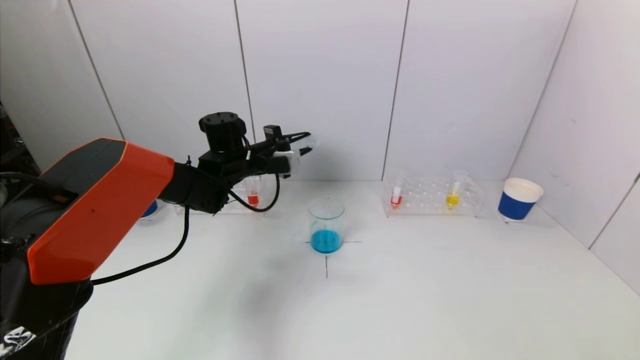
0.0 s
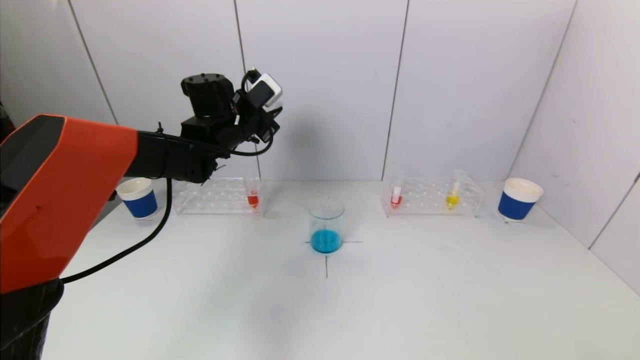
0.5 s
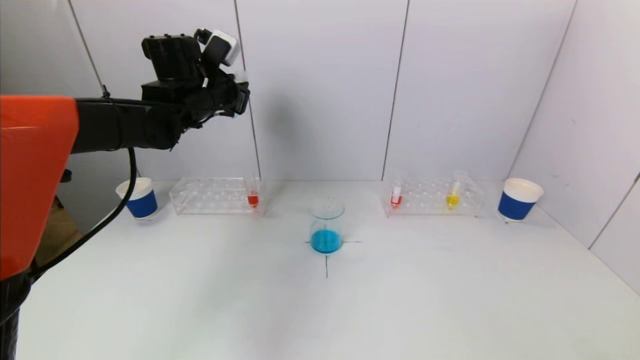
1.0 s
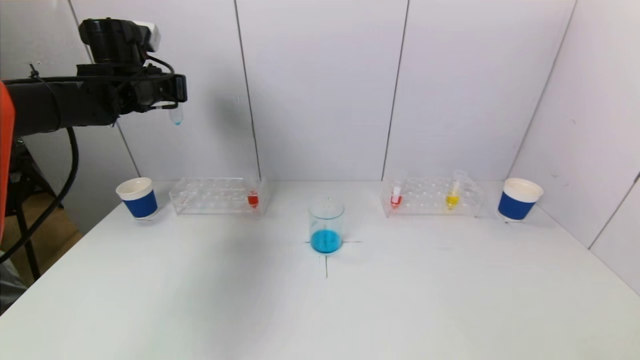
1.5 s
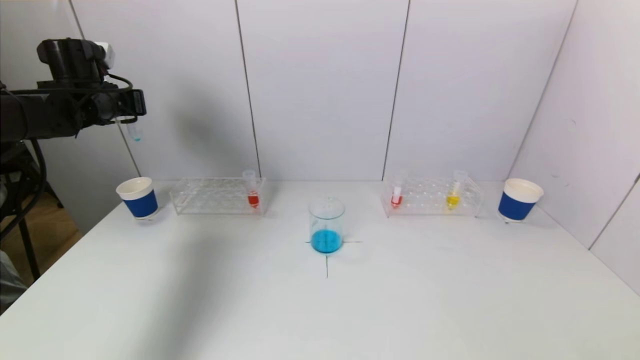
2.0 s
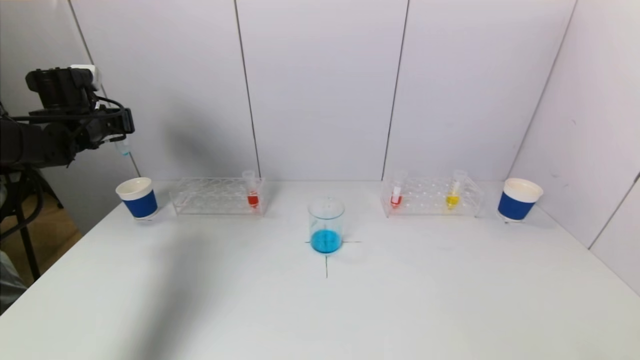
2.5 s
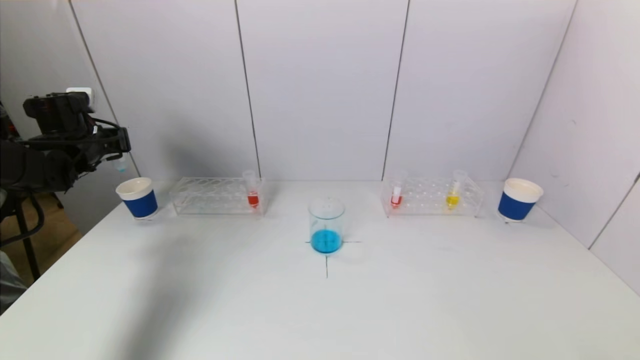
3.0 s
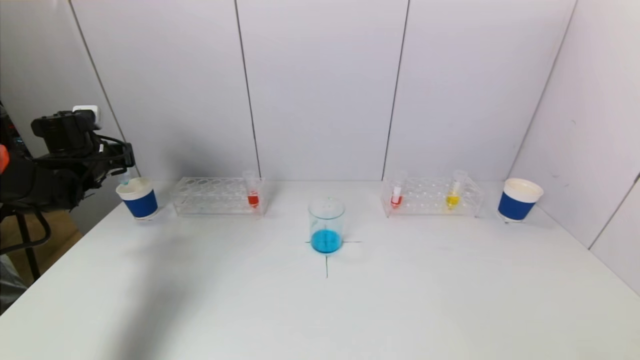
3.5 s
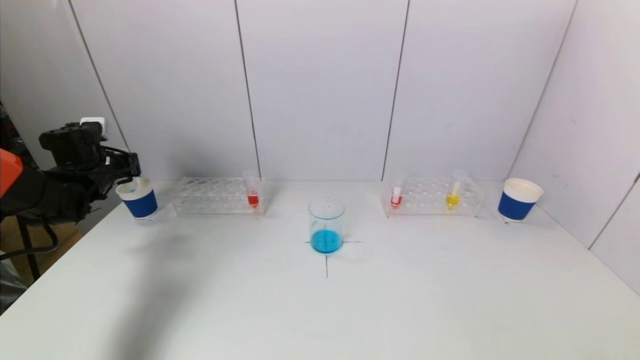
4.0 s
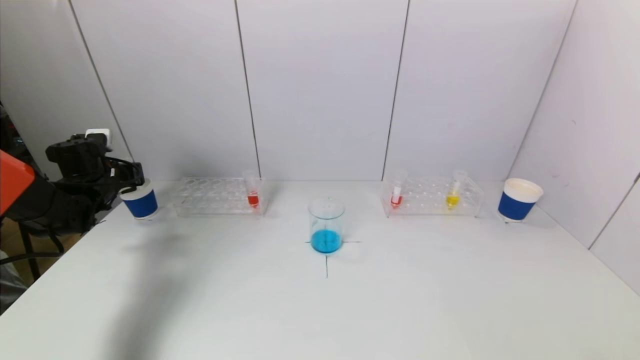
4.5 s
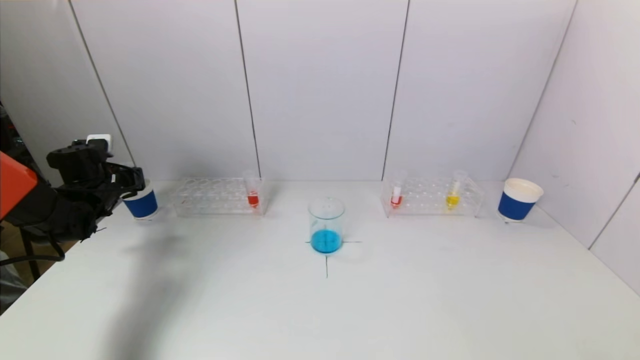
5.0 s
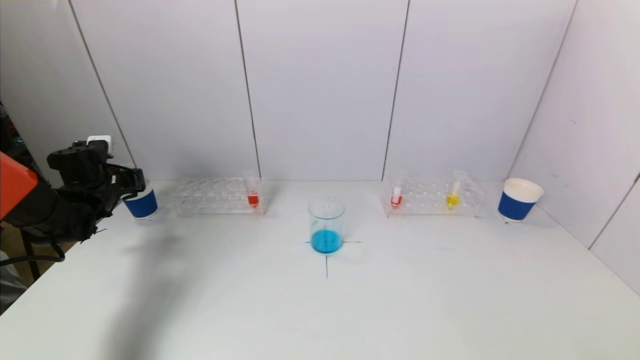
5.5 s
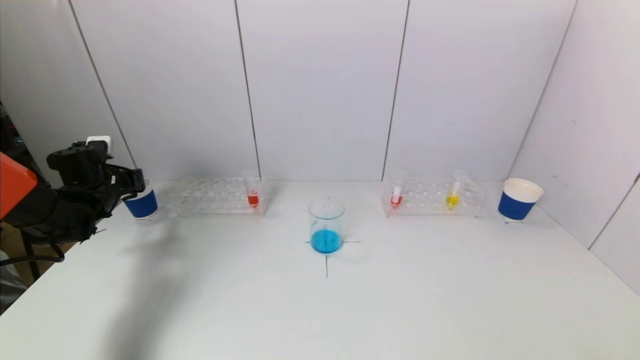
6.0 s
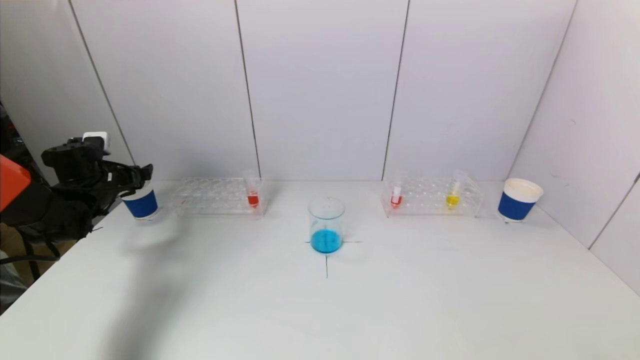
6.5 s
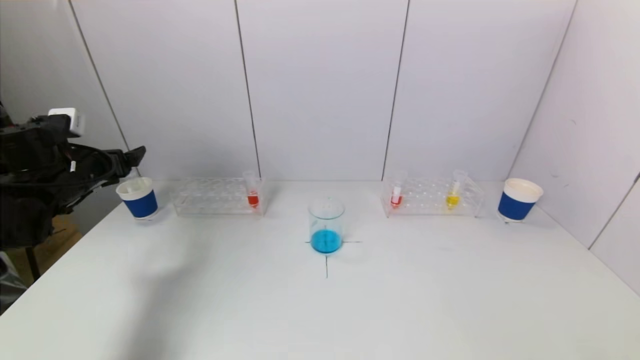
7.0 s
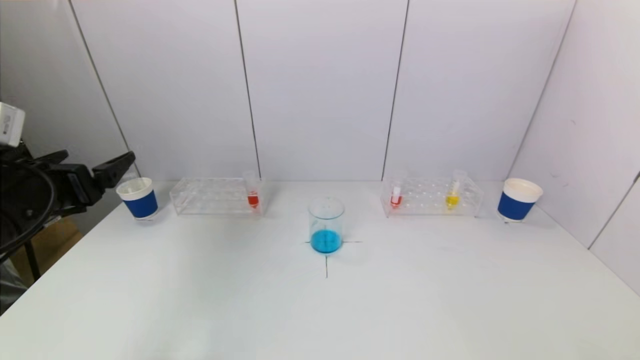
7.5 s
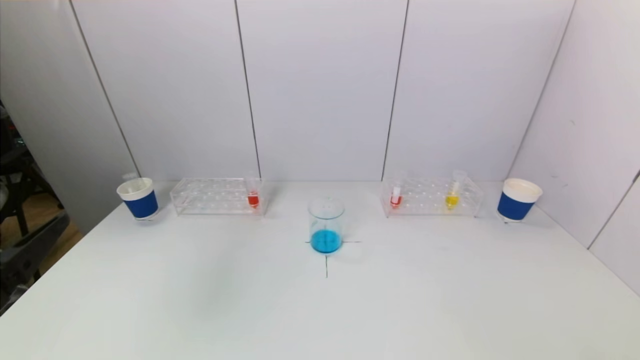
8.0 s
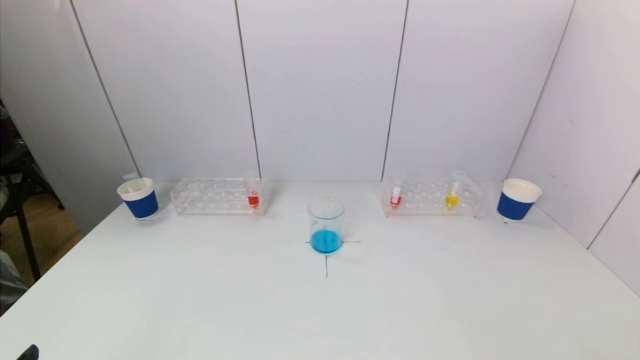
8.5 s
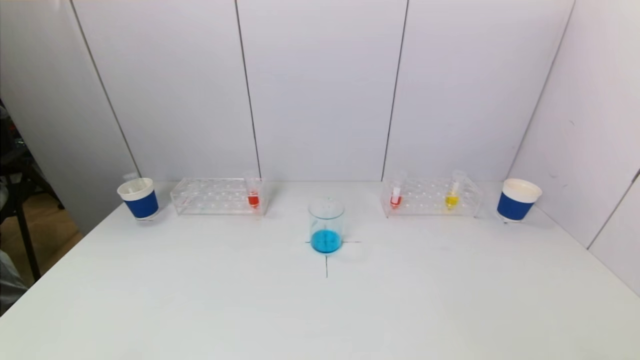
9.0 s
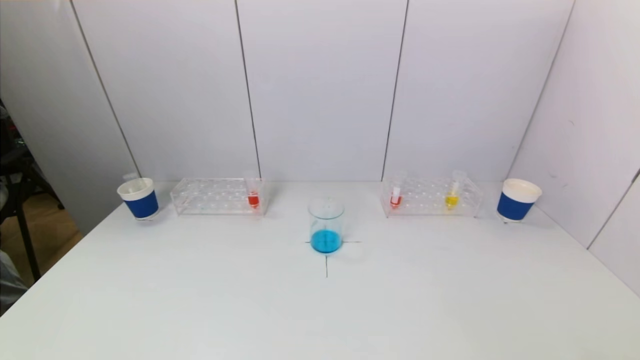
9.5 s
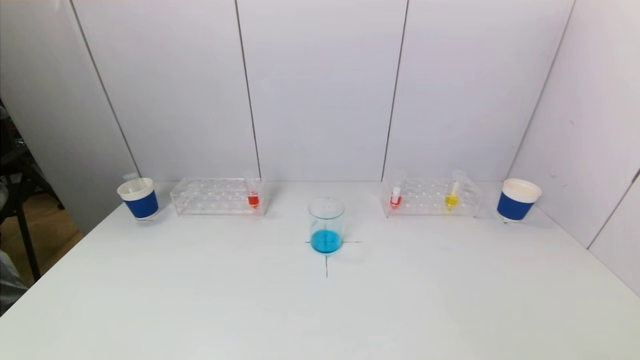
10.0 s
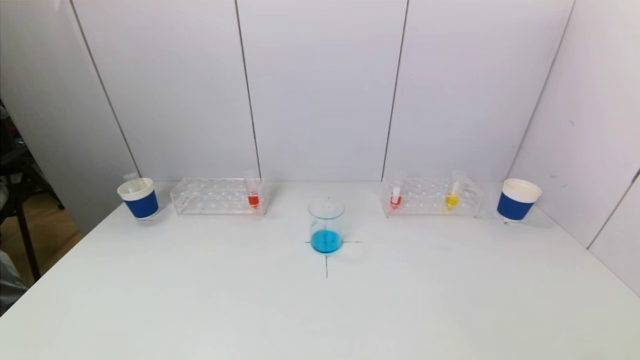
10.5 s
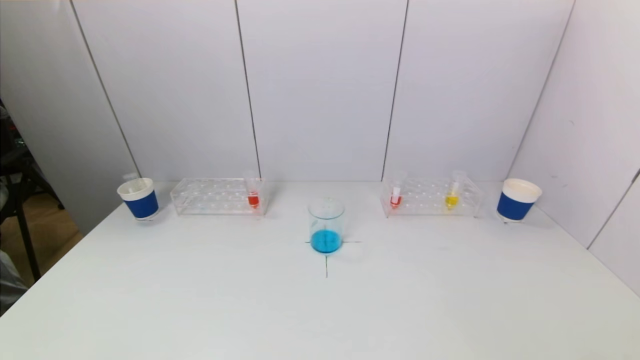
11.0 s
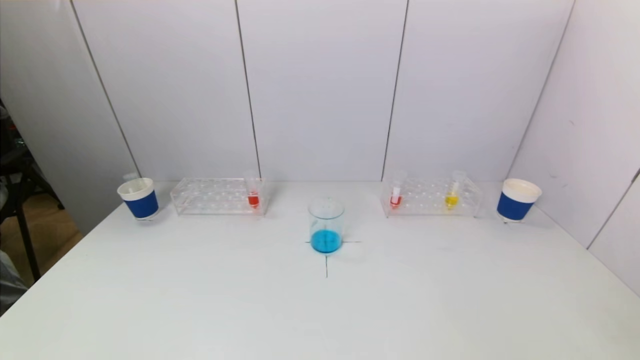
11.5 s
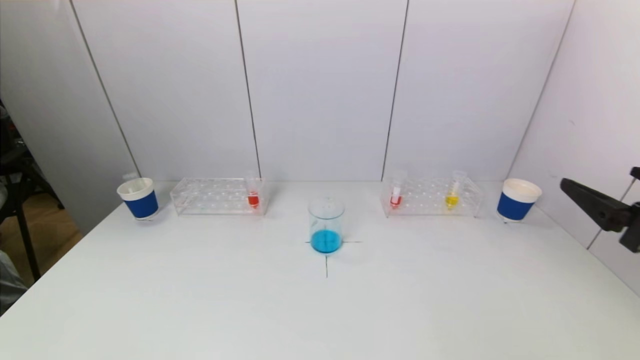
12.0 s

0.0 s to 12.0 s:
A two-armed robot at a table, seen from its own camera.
Task of the whole recording: pick up a test tube with pigment on left test tube rack and a test tube with pigment on right test tube rack by grippers and pour them into the beaker.
Step, 0.5 to 6.5 s: Place the test tube into the paper cup with the left gripper.
0.0 to 2.0 s: The left gripper is displaced to the left and upward by about 25 cm.
2.0 to 4.0 s: The left gripper travels downward by about 15 cm.
4.0 to 6.0 s: The left gripper opens up.
6.0 to 8.0 s: The left gripper is displaced backward by some 35 cm, and opens up.
8.0 to 10.0 s: The left gripper heads downward and backward, covering approximately 15 cm.
10.0 to 12.0 s: The right gripper travels forward and upward by about 25 cm.

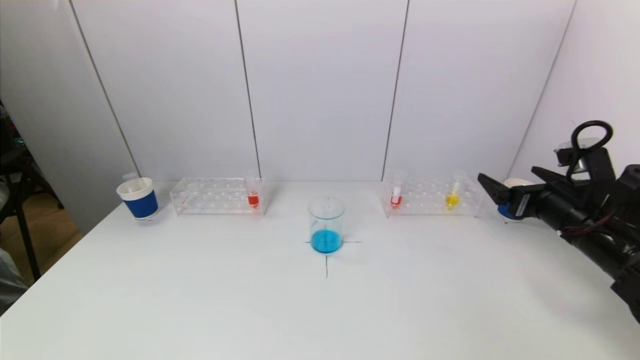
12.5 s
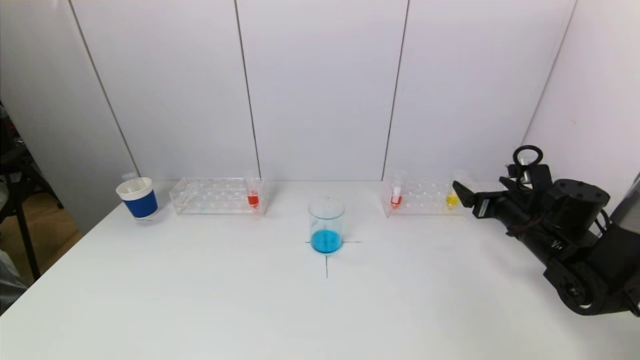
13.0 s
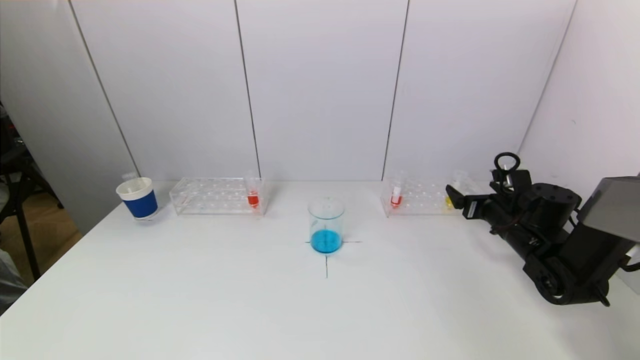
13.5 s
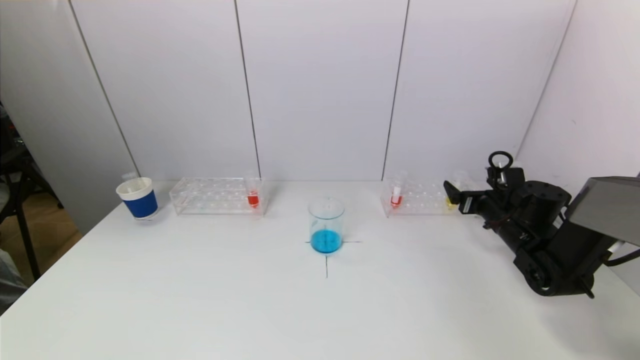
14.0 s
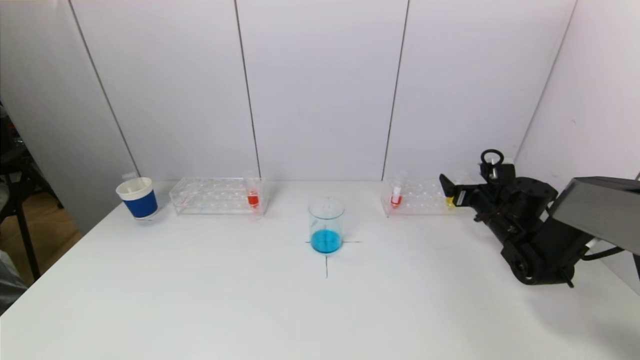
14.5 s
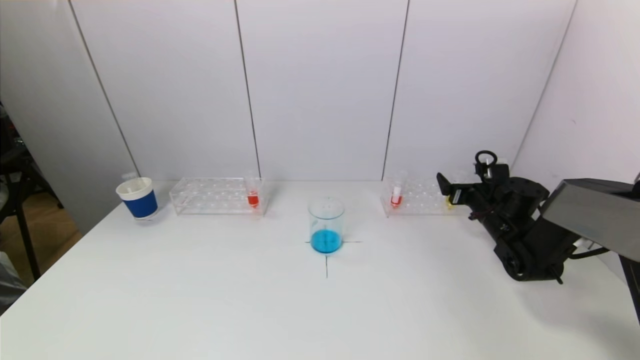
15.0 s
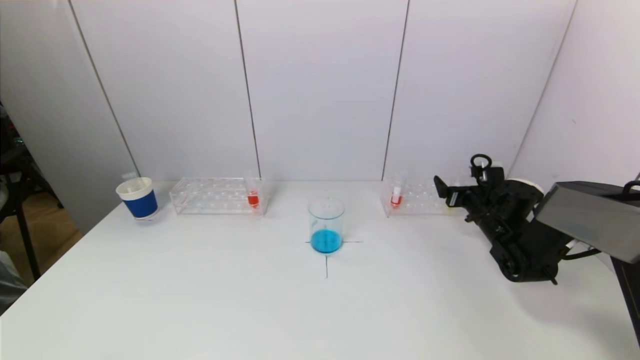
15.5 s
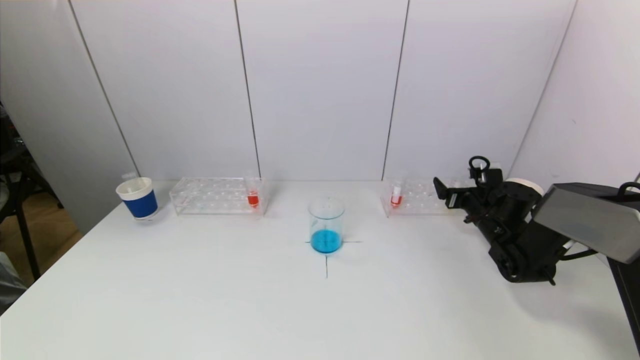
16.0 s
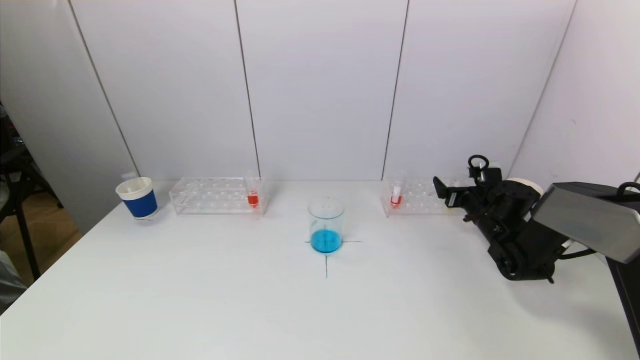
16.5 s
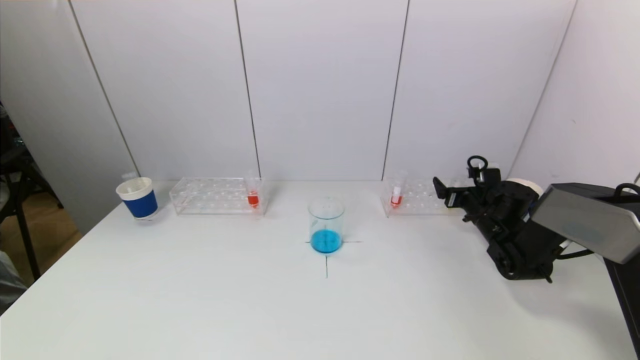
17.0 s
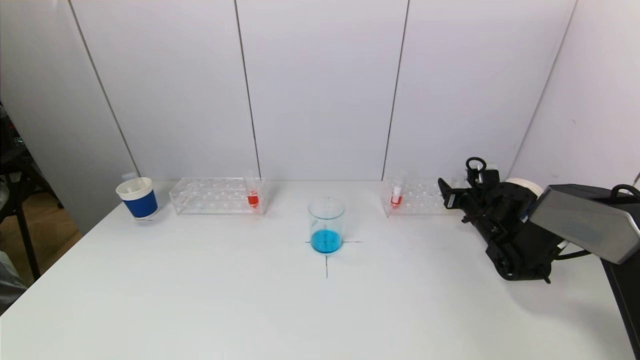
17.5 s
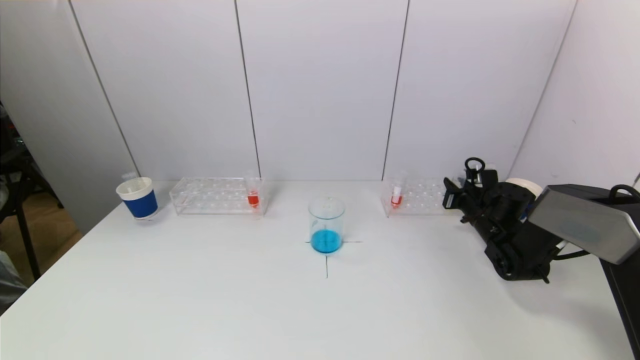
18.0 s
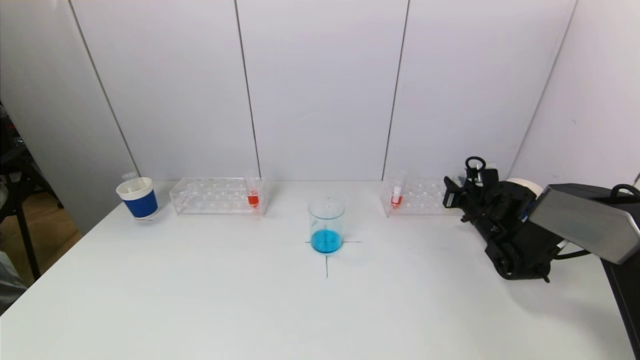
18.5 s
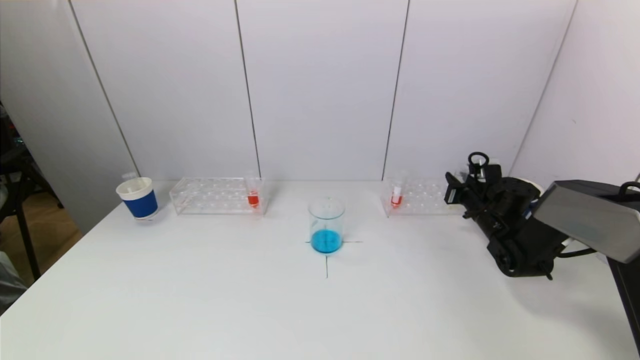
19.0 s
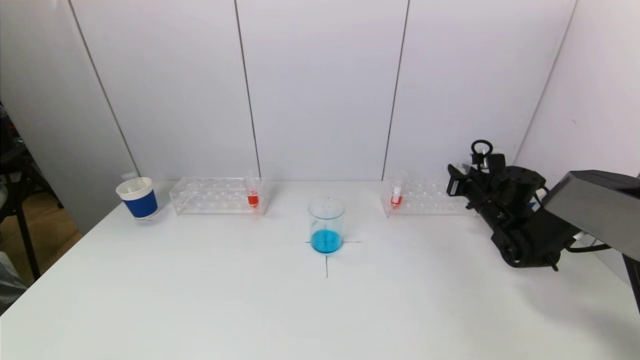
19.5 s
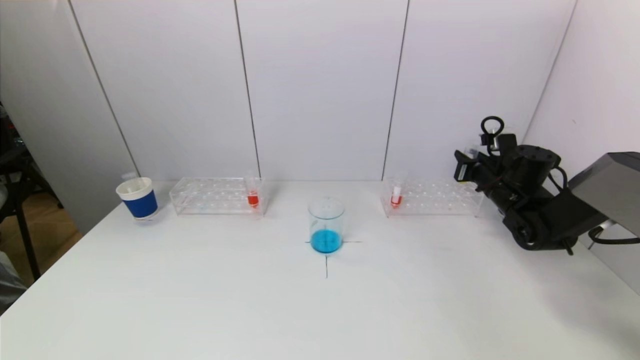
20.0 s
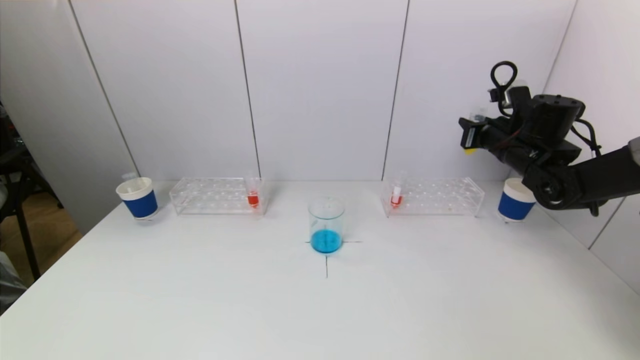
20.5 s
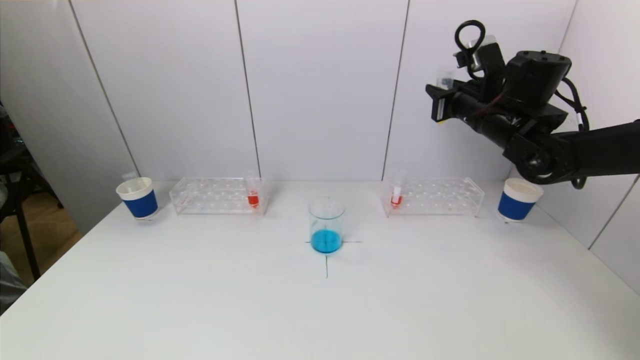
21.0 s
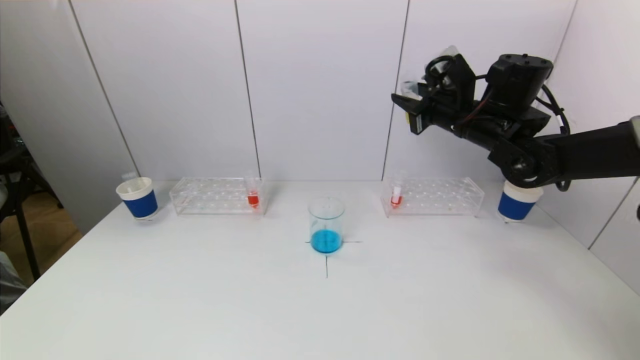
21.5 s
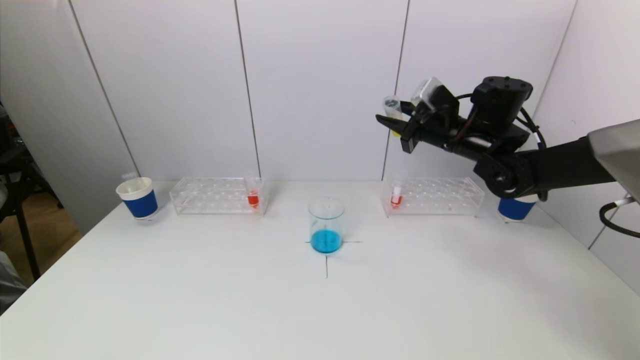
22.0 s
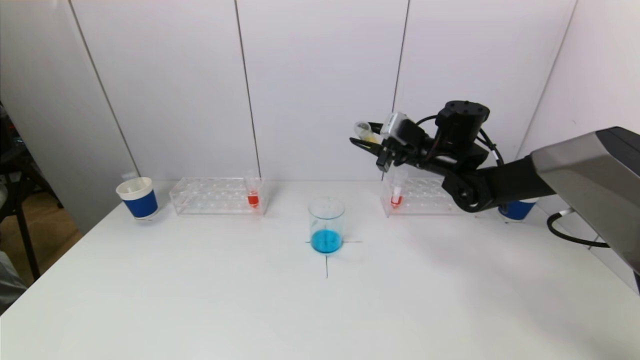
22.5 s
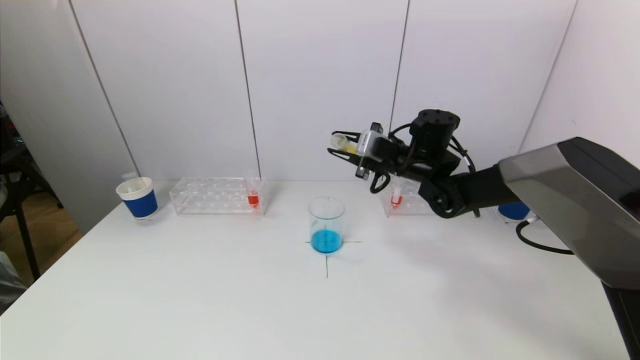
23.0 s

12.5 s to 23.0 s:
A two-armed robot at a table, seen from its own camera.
Task of the whole recording: pick up a test tube with pigment on left test tube rack and a test tube with pigment on right test tube rack by grippers and pour them into the beaker.
Step, 12.5 to 18.0 s: Grasp the yellow reagent with the right gripper.
12.5 to 14.5 s: The right gripper is displaced forward and downward by about 15 cm.
14.5 to 16.5 s: The grippers stay close to where they were, moving slightly.
16.5 to 19.0 s: The right gripper closes its fingers.
19.0 to 21.0 s: The right gripper travels upward by roughly 20 cm.
21.0 to 23.0 s: The right gripper moves to the left and downward, roughly 15 cm.
